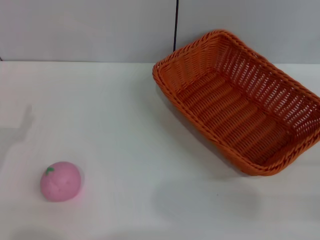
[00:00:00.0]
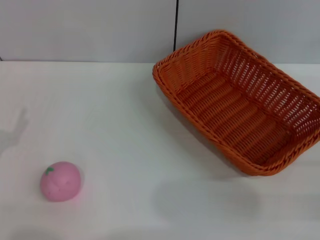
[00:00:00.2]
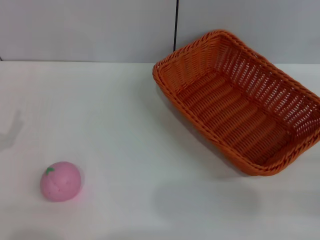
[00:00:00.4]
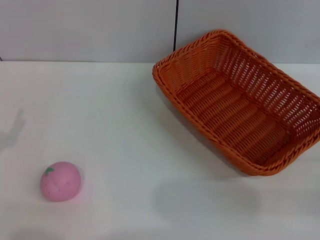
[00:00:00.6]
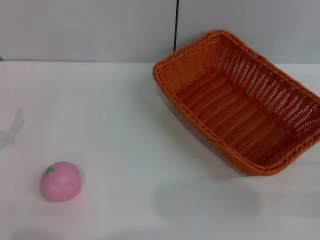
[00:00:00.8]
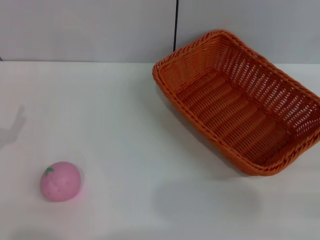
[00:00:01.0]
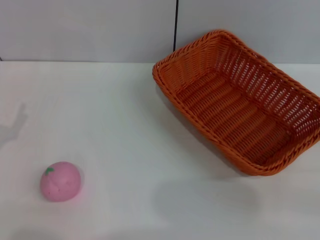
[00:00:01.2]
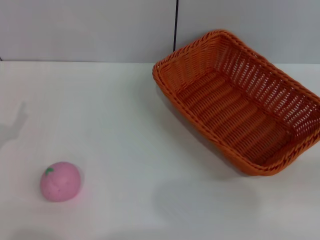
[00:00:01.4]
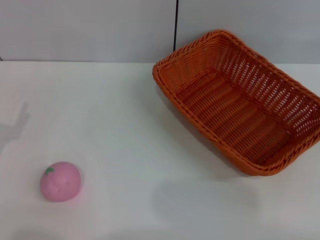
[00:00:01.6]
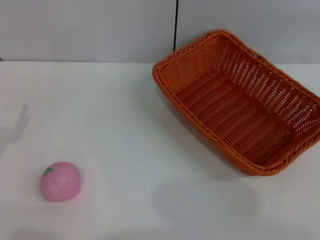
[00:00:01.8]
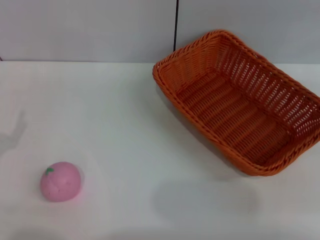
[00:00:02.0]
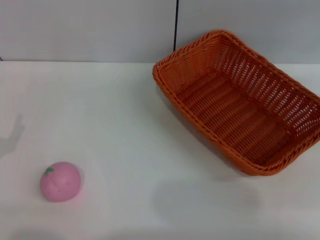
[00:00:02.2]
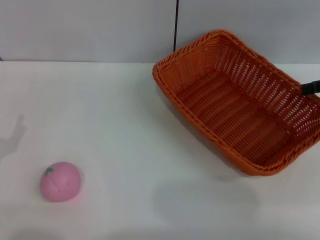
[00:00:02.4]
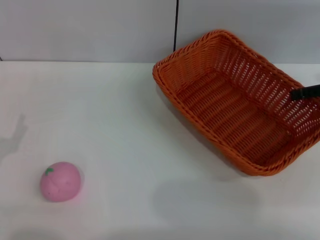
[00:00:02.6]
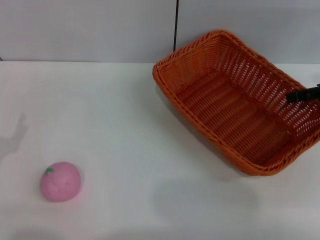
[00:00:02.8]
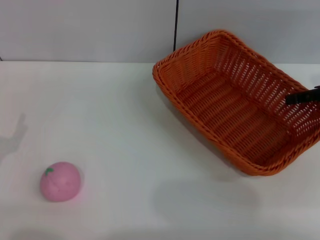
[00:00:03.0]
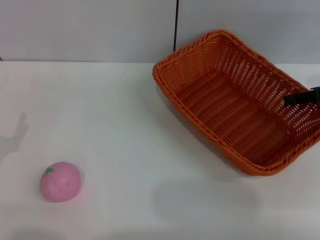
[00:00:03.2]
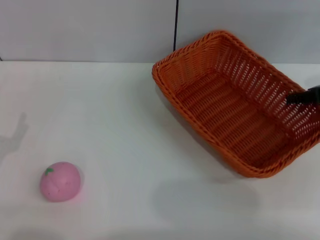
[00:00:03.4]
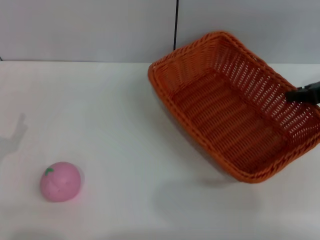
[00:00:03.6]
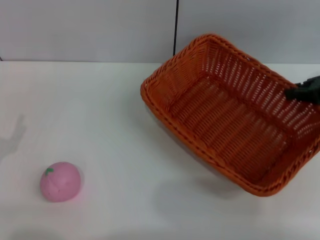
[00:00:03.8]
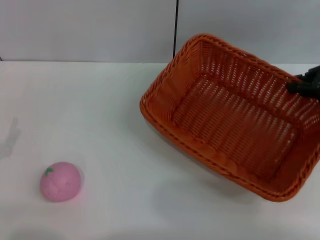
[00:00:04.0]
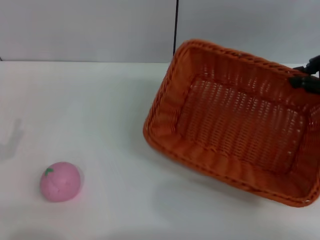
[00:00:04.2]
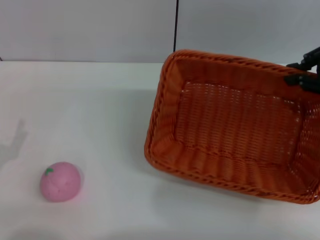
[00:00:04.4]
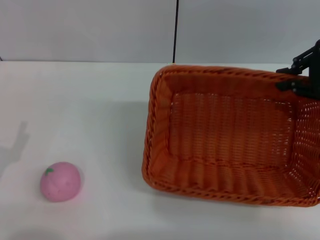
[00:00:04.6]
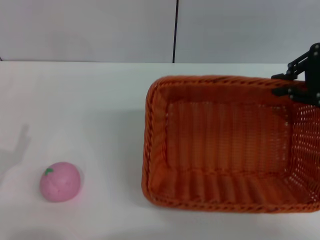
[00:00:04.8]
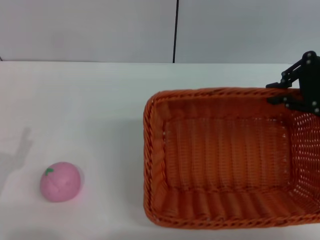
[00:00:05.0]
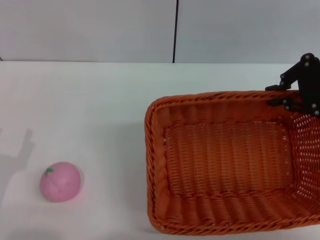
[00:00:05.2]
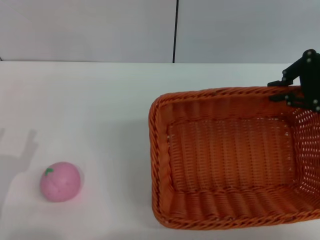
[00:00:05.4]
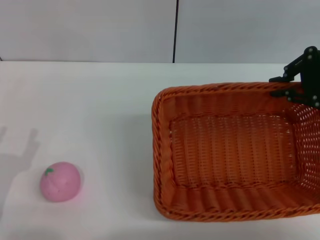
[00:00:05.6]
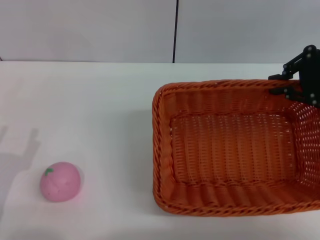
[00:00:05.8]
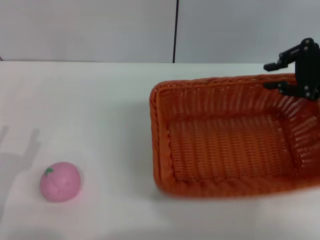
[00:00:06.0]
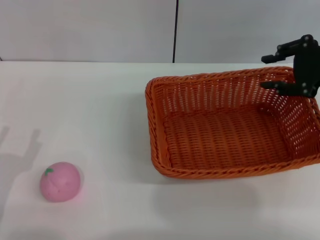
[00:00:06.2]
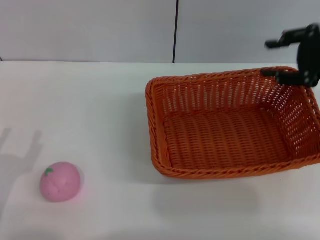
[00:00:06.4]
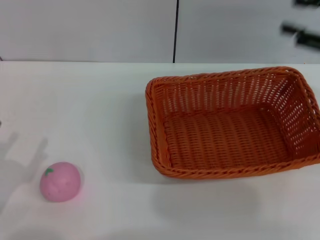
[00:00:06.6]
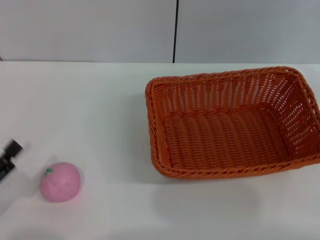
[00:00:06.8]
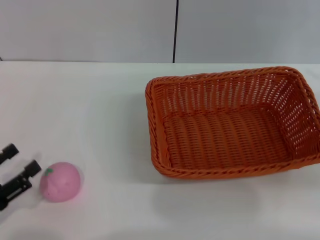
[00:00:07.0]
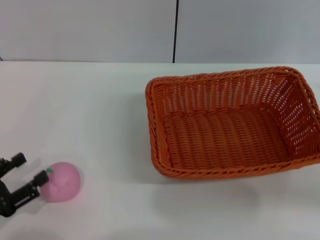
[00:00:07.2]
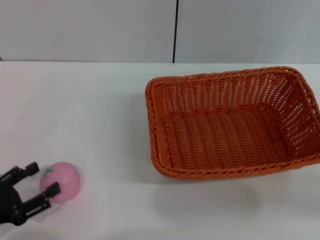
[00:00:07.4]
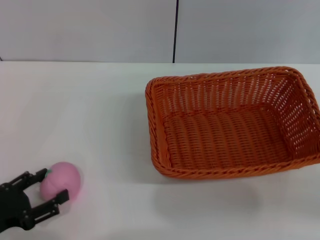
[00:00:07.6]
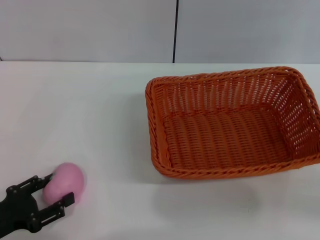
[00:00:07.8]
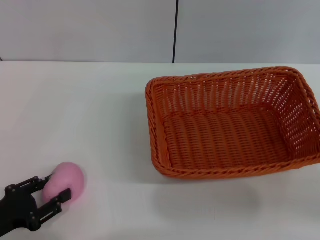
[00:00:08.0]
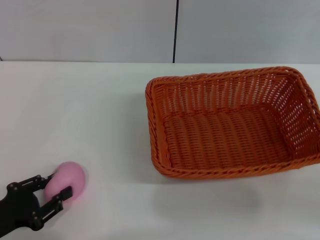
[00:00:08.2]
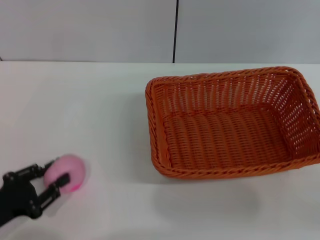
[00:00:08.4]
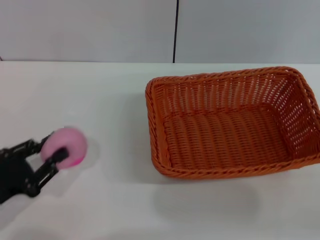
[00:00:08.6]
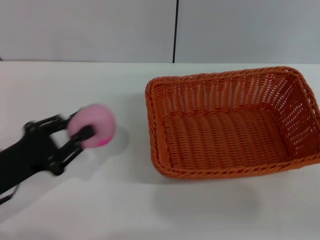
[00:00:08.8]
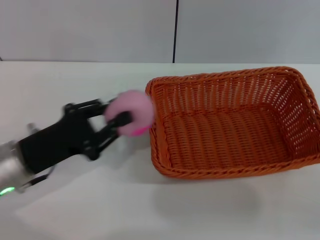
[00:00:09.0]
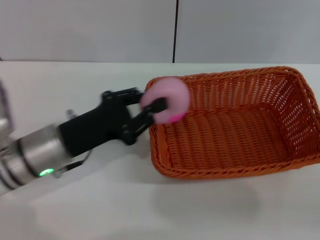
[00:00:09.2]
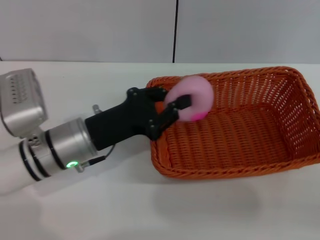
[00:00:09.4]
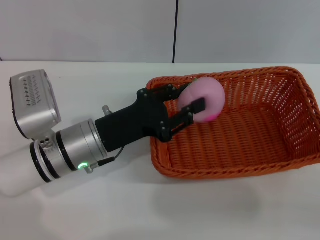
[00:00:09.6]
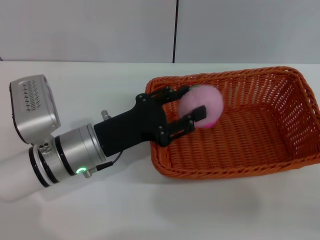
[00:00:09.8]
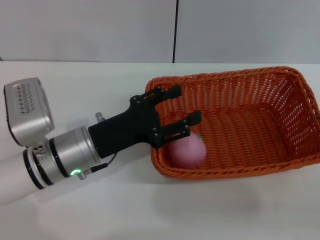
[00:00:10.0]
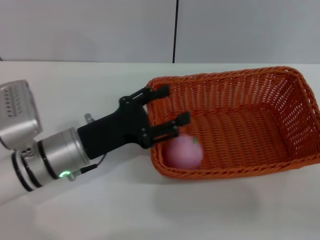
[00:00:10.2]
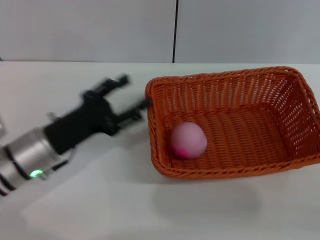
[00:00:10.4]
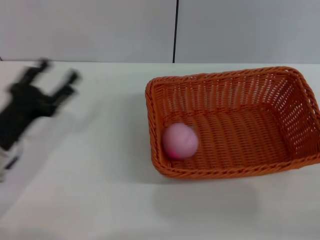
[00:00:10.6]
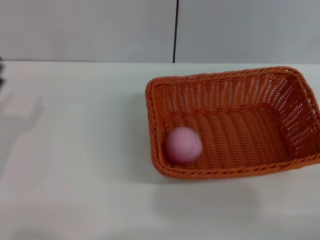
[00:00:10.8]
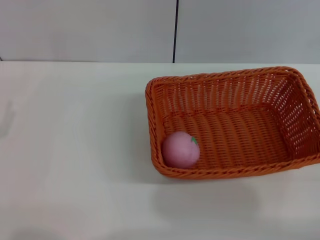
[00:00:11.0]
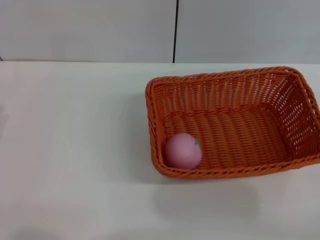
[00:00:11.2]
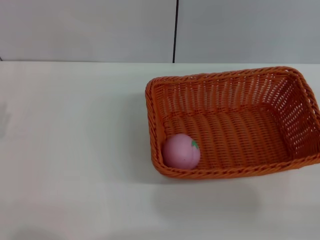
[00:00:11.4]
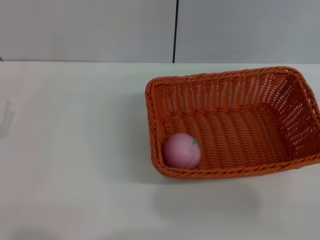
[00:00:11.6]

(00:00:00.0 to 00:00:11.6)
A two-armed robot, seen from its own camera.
Step, 00:00:00.0 - 00:00:04.4: Pick up the light basket with the right gripper.
Step, 00:00:04.6 - 00:00:06.4: Place the light basket in the center of view with the right gripper.
Step, 00:00:06.6 - 00:00:08.8: Pick up the peach with the left gripper.
Step, 00:00:09.0 - 00:00:10.2: Place the peach into the basket with the left gripper.
00:00:01.4 - 00:00:02.8: The right gripper travels forward and to the left by about 20 cm.
00:00:02.8 - 00:00:04.4: The right gripper shifts approximately 5 cm upward, and closes.
00:00:05.8 - 00:00:07.2: The right gripper moves backward, downward and to the right, some 15 cm, and opens.
00:00:07.2 - 00:00:08.8: The left gripper travels forward and to the right by roughly 10 cm, and closes up.
00:00:08.8 - 00:00:10.2: The left gripper is displaced to the right and forward by some 10 cm, and opens.
00:00:10.2 - 00:00:11.6: The right gripper shifts by approximately 5 cm. The left gripper shifts about 15 cm to the left and backward.
